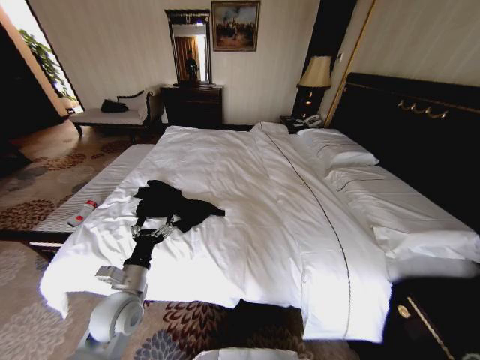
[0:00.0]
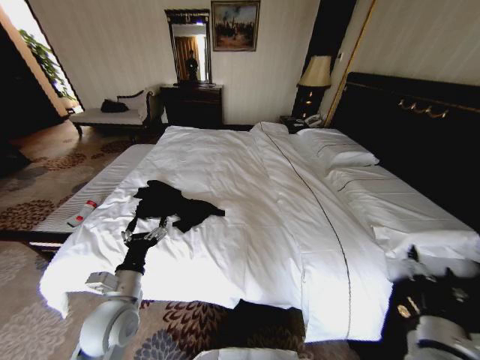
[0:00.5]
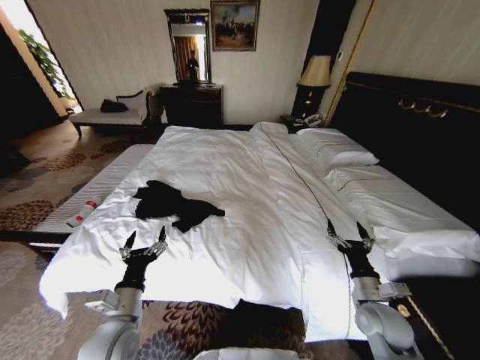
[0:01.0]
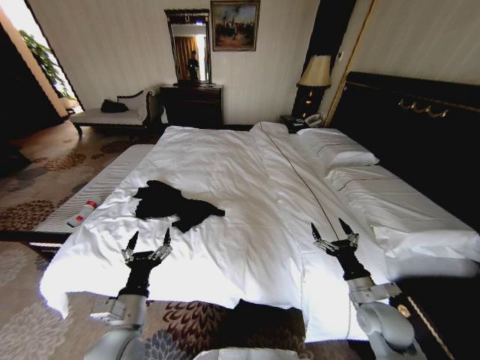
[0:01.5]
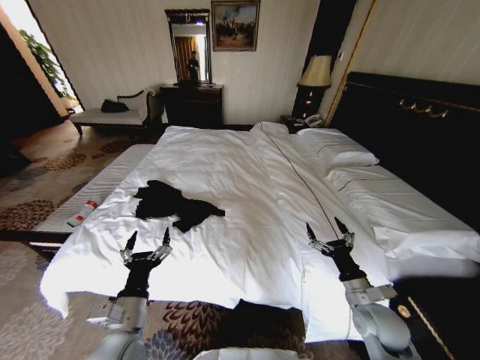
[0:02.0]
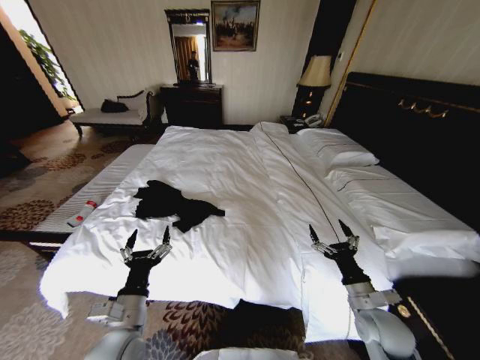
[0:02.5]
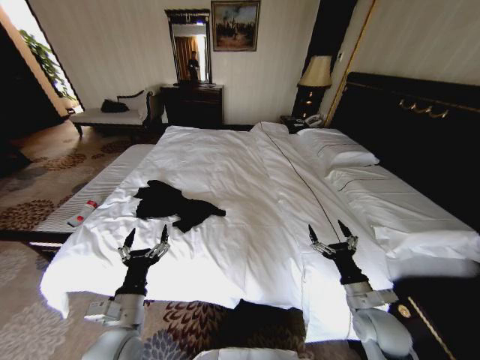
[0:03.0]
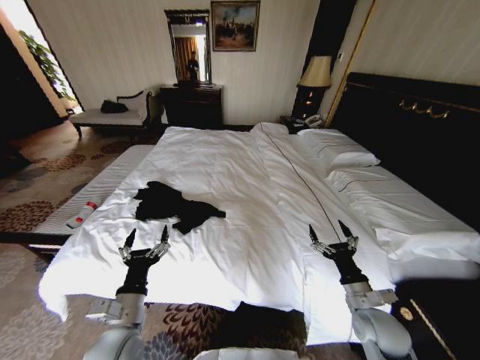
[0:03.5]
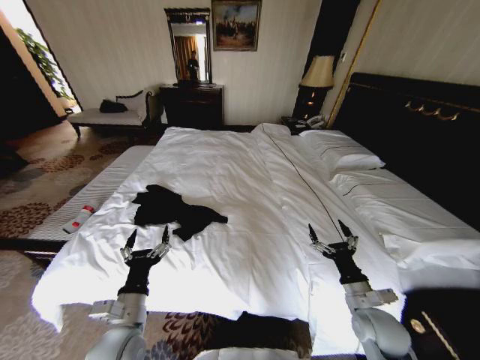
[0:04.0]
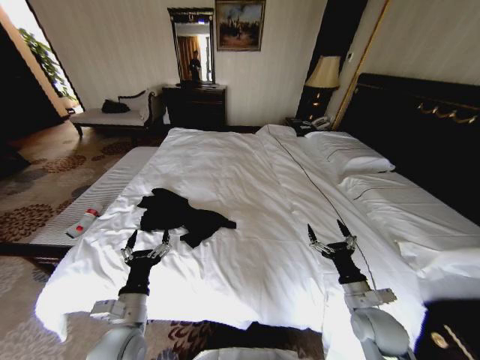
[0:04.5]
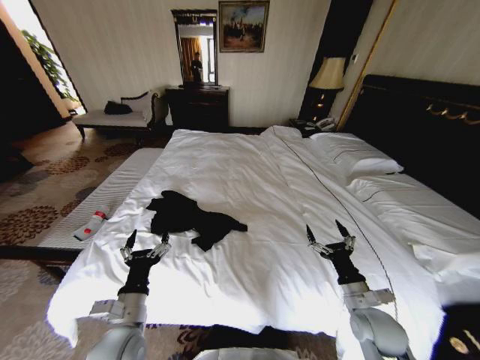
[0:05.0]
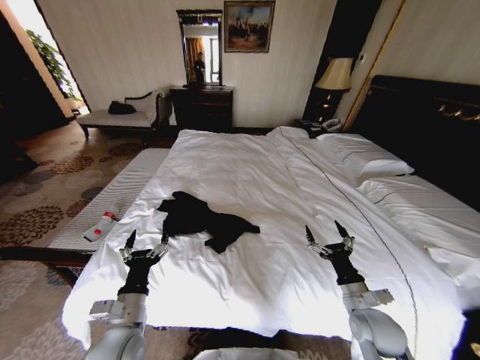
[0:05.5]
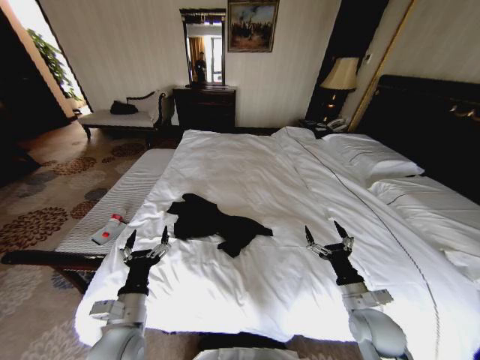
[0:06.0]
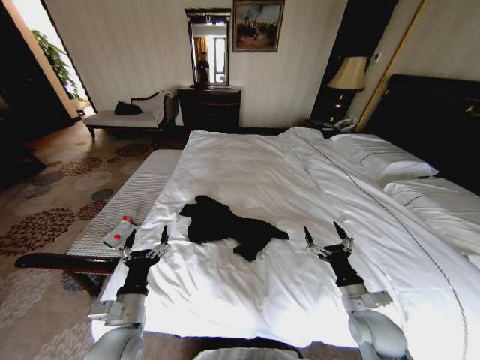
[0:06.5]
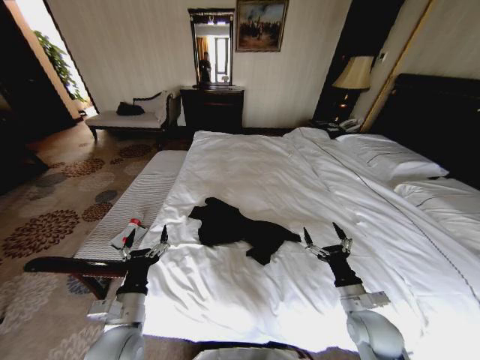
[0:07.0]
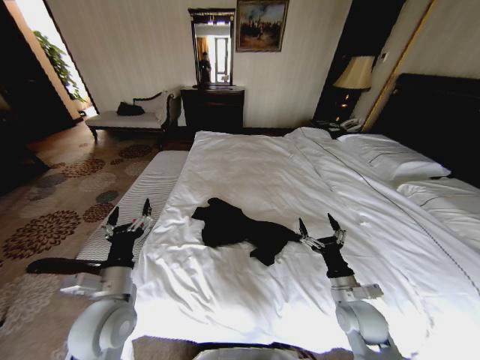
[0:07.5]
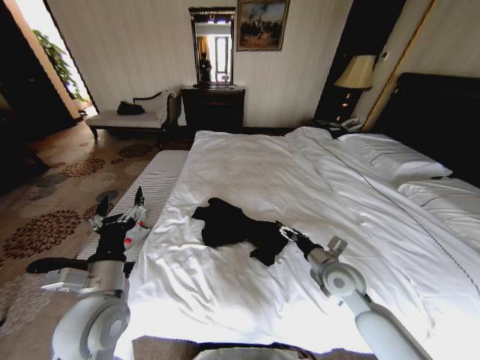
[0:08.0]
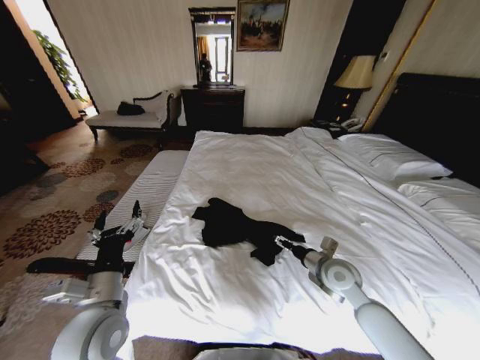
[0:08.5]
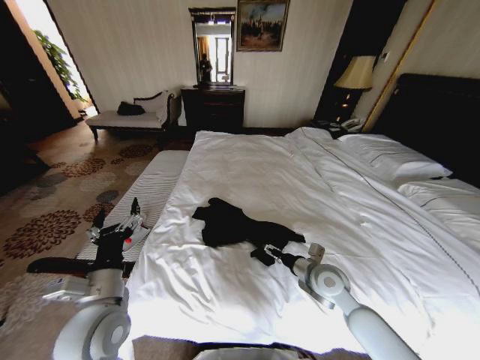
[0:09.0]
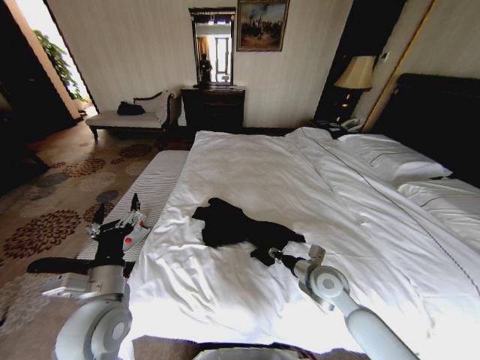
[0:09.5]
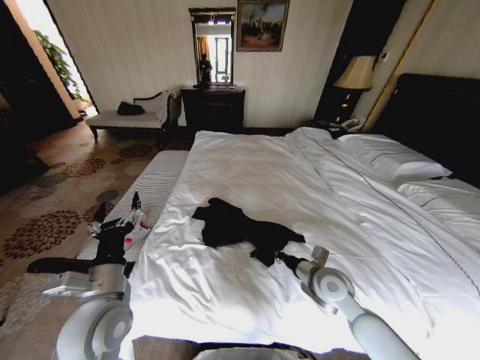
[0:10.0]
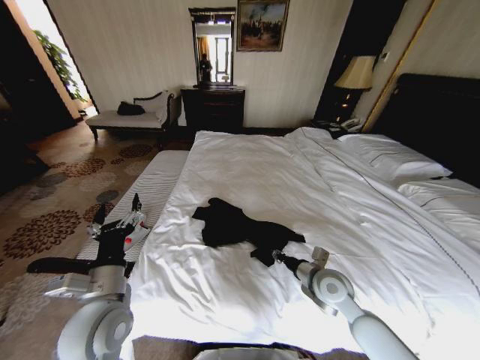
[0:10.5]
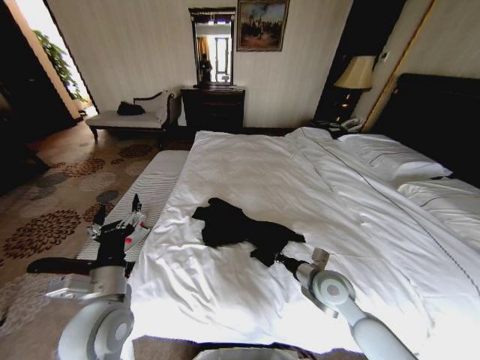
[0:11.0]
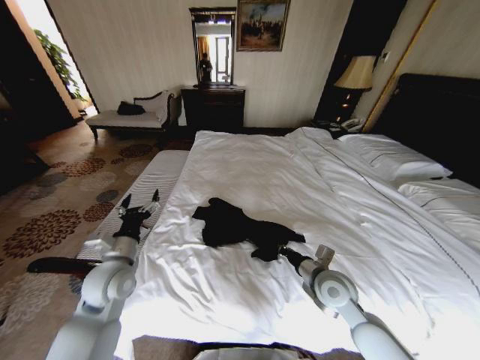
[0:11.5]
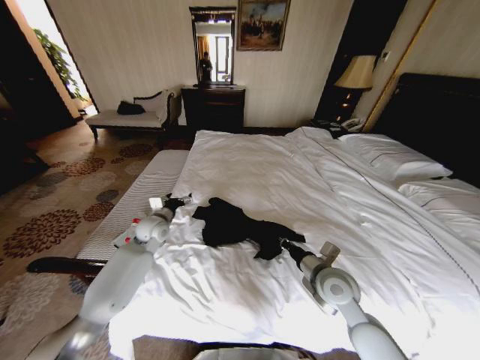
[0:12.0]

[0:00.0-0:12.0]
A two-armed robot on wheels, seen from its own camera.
Task of the whole recording: Fold the clothes on the bed.
0:00.0 to 0:02.0: The left gripper heads backward, covering some 10 cm, while the right gripper travels forward by some 15 cm, and opens.
0:02.0 to 0:04.0: Neither gripper changes place.
0:06.0 to 0:08.0: The left gripper is displaced upward by some 10 cm; the right gripper moves forward, about 10 cm.
0:08.0 to 0:10.0: The right gripper closes.
0:10.0 to 0:12.0: The right gripper opens and closes again; the left gripper is displaced forward by about 25 cm.

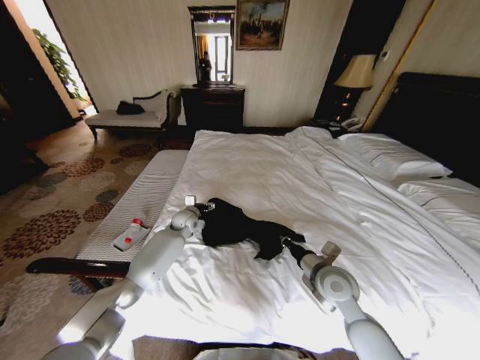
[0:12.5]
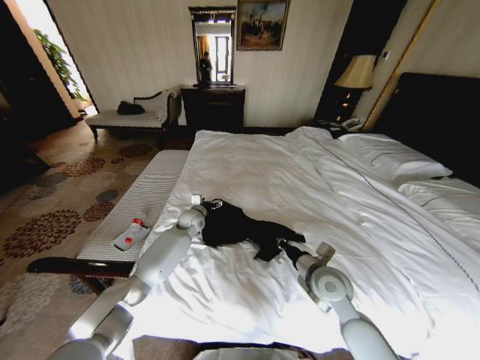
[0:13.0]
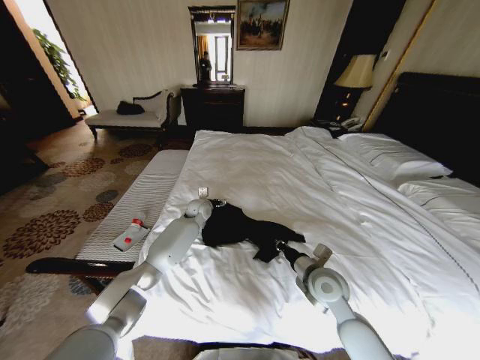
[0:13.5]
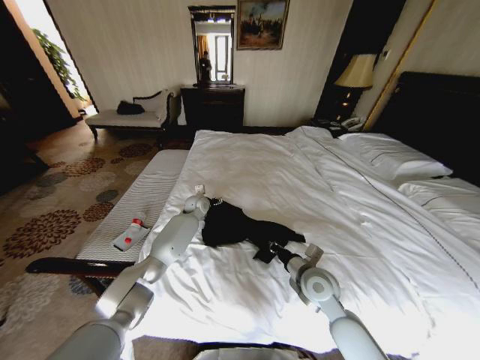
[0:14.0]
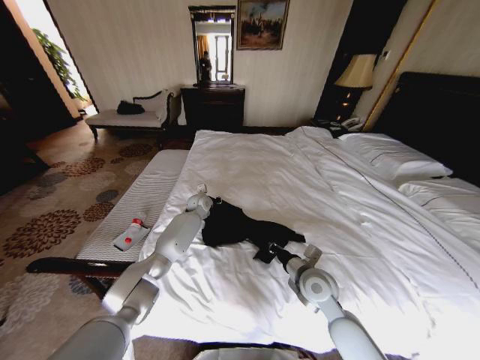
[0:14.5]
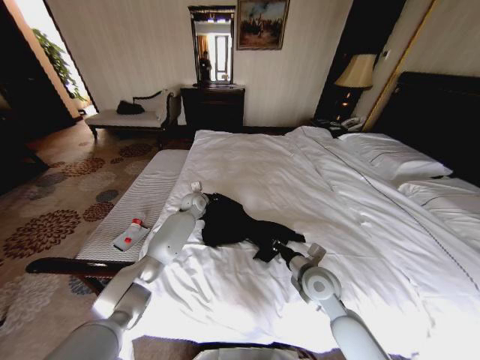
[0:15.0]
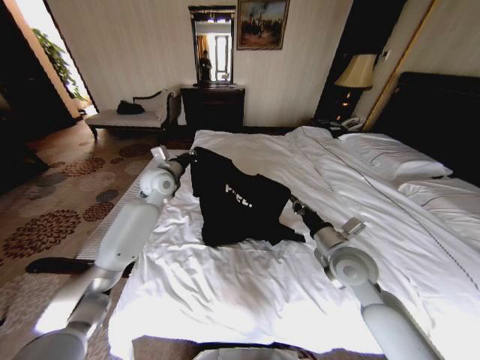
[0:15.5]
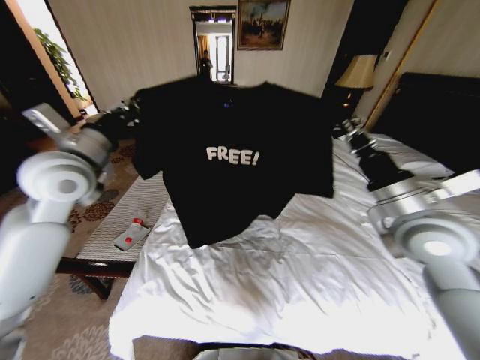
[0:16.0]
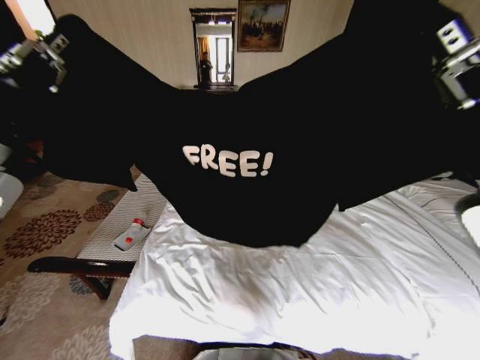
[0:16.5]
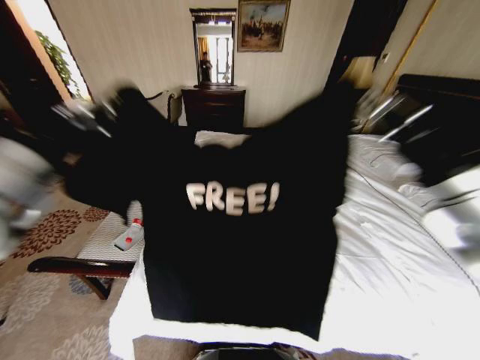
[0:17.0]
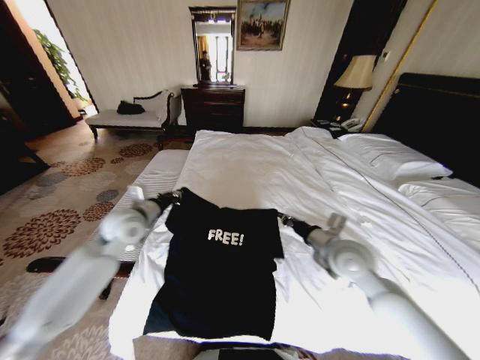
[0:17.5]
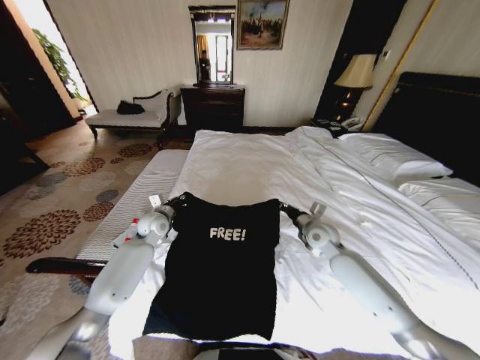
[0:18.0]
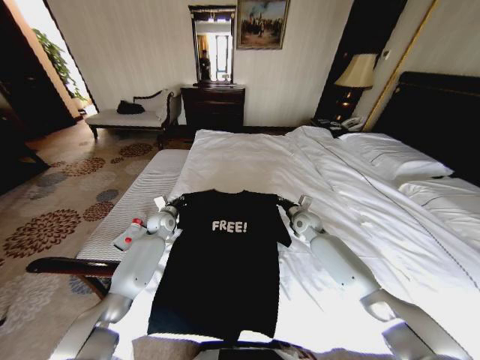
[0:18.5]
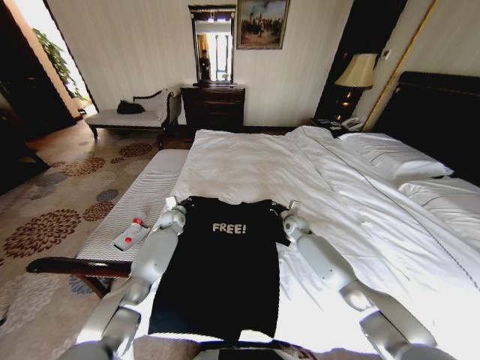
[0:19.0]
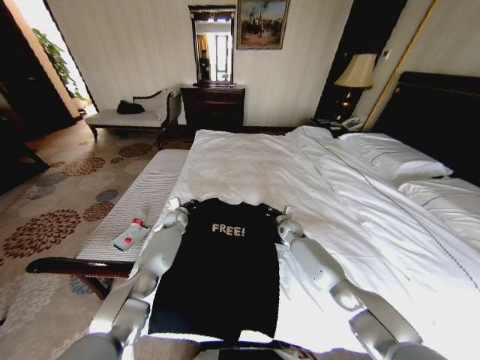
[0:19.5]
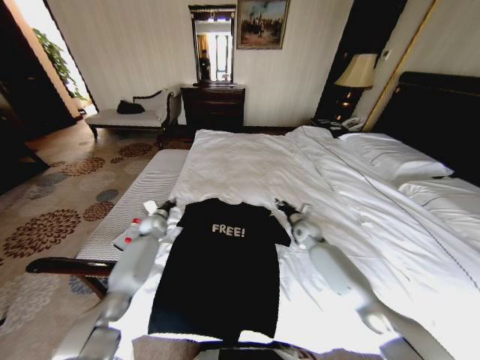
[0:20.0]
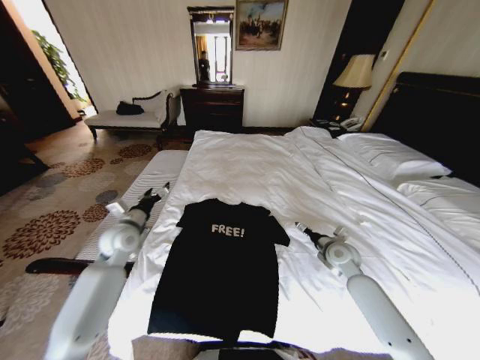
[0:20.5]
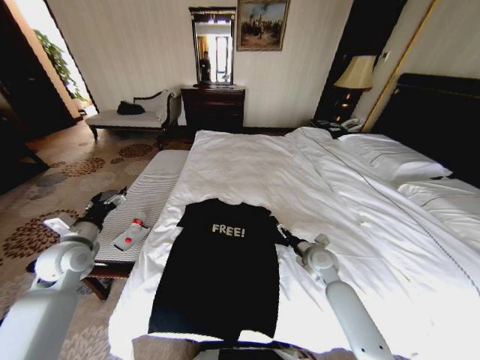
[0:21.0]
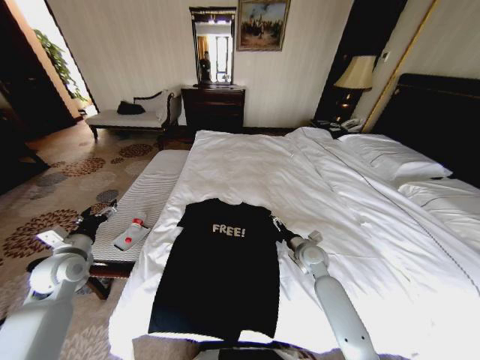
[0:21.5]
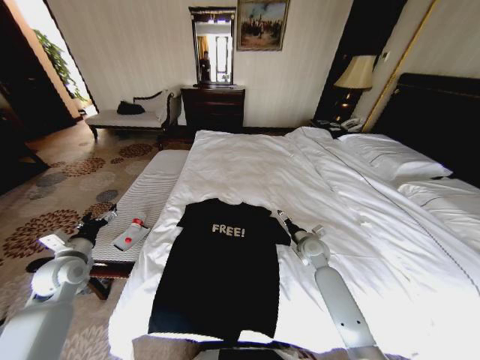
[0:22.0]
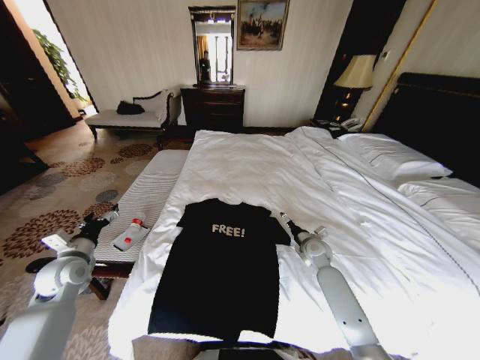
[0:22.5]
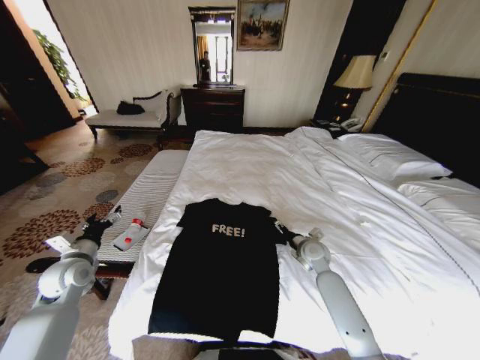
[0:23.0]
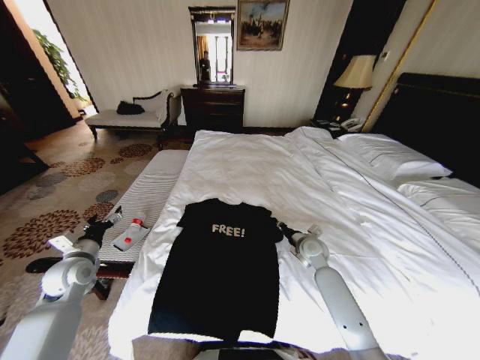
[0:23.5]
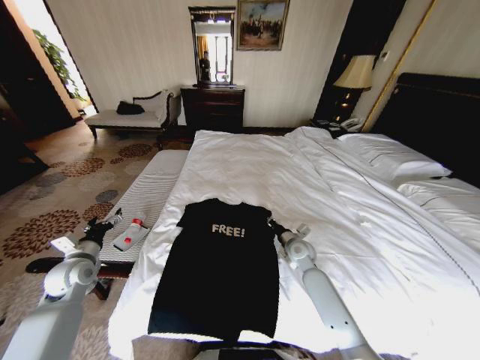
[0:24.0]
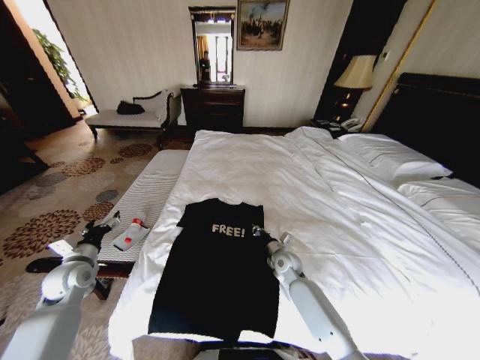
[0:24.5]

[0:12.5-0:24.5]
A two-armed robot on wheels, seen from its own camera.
Task of the whole recording: Fold the clothes on the bed.
0:12.5 to 0:14.5: The left gripper heads forward, covering about 5 cm, and closes up.
0:14.5 to 0:16.5: The right gripper shifts roughly 30 cm upward. The left gripper shifts approximately 60 cm backward, upward and to the left.
0:16.5 to 0:18.5: Both grippers move downward and forward, roughly 50 cm.
0:18.5 to 0:20.5: The left gripper is displaced backward, upward and to the left by about 15 cm, and opens. Meanwhile the right gripper moves backward and to the right, some 15 cm, and opens up.
0:20.5 to 0:22.5: The right gripper shifts by approximately 5 cm. The left gripper heads to the left and backward, covering approximately 15 cm.
0:22.5 to 0:24.5: The right gripper moves to the left, approximately 10 cm, and closes up.

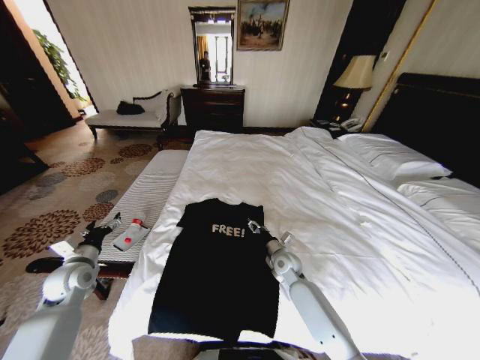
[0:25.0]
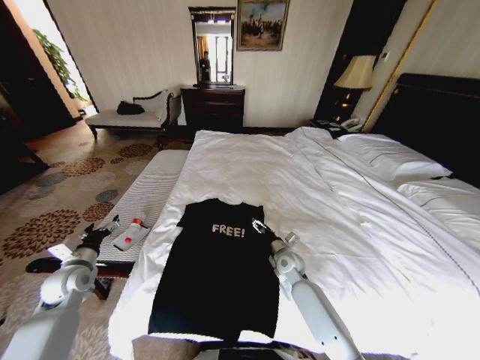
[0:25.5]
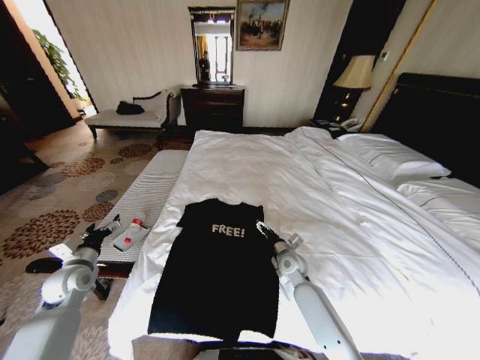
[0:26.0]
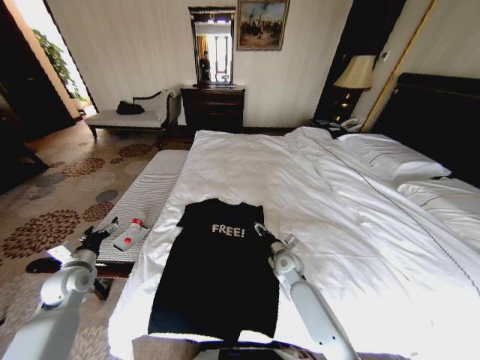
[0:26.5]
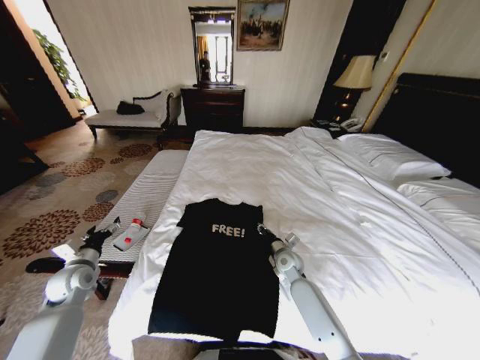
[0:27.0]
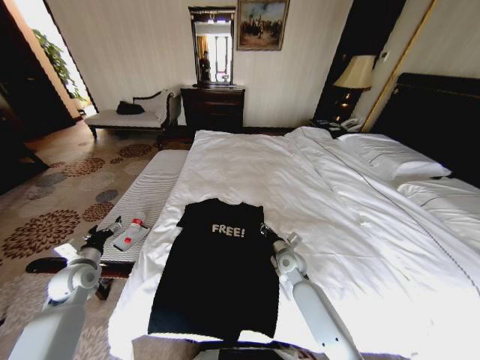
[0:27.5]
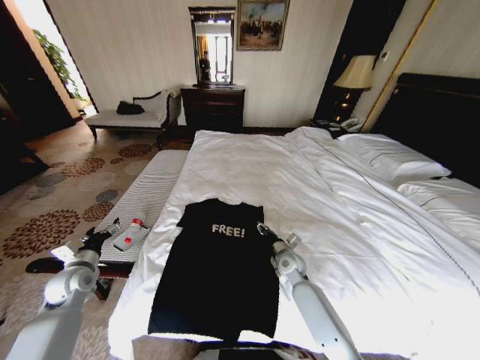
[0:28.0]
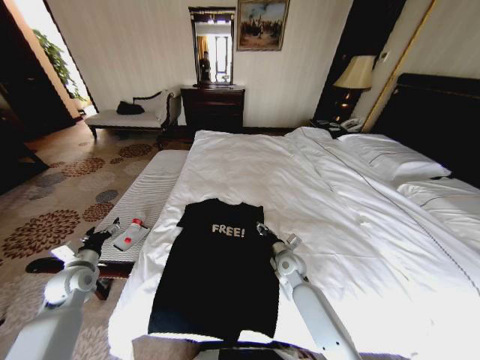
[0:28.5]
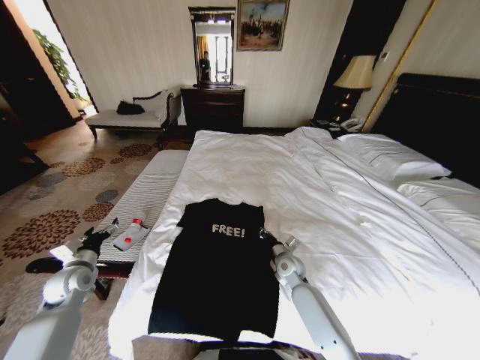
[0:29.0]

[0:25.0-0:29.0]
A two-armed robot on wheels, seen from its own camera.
Task of the whole recording: Fold the clothes on the bed.
0:25.0 to 0:27.0: The right gripper opens, then closes again.
0:27.0 to 0:29.0: The grippers stay close to where they were, moving slightly.
